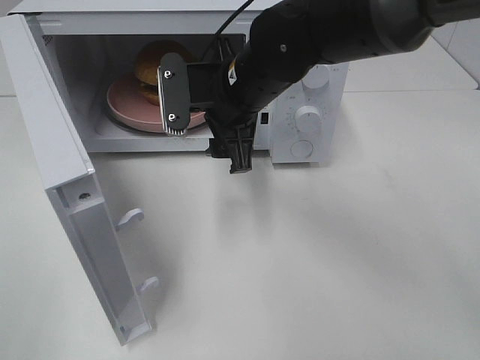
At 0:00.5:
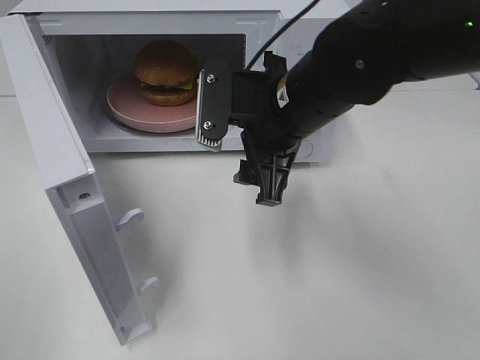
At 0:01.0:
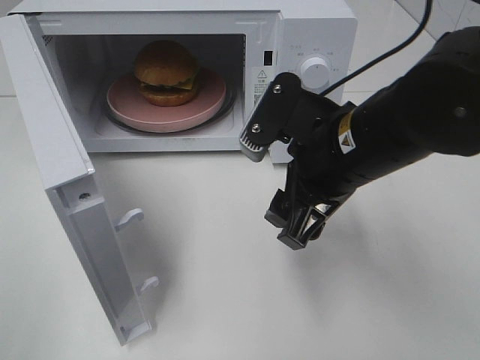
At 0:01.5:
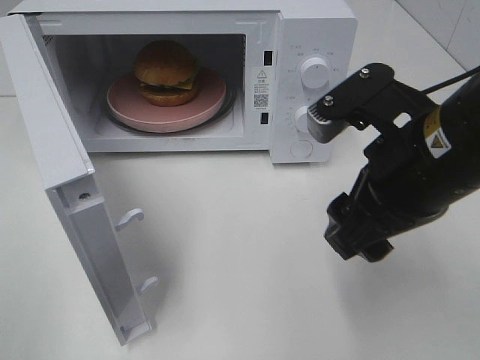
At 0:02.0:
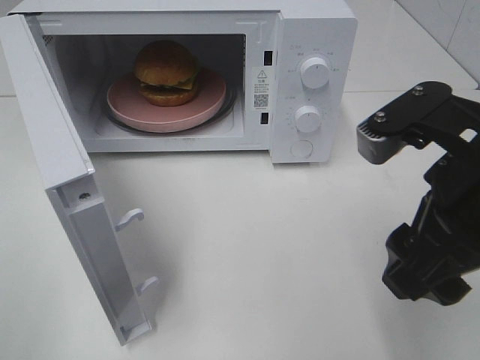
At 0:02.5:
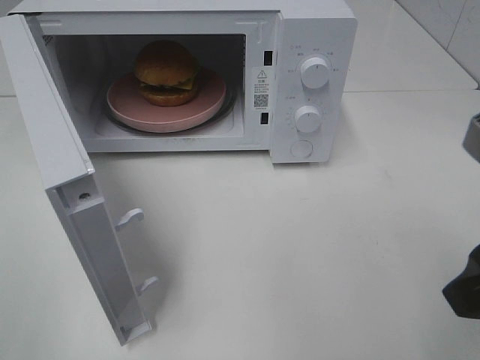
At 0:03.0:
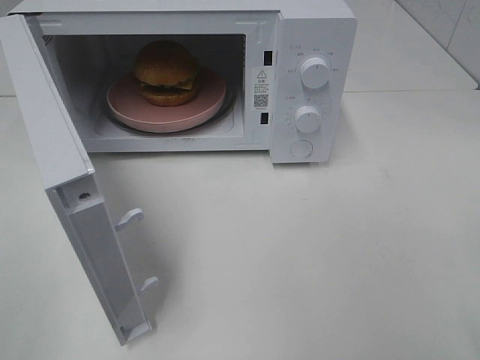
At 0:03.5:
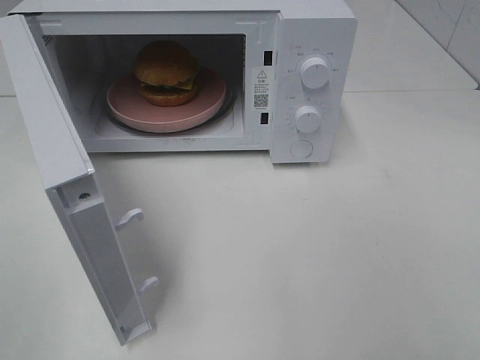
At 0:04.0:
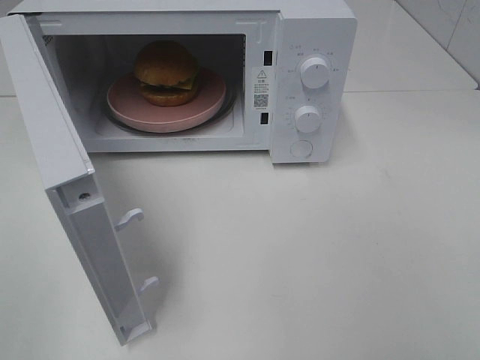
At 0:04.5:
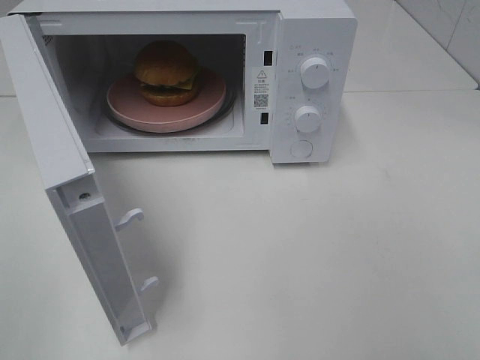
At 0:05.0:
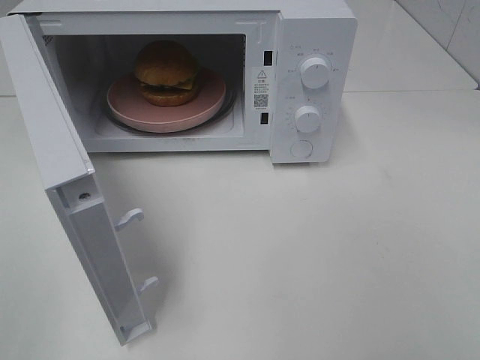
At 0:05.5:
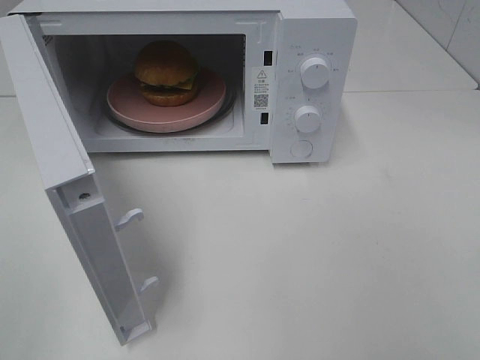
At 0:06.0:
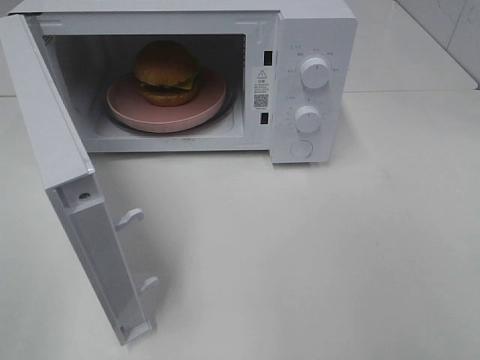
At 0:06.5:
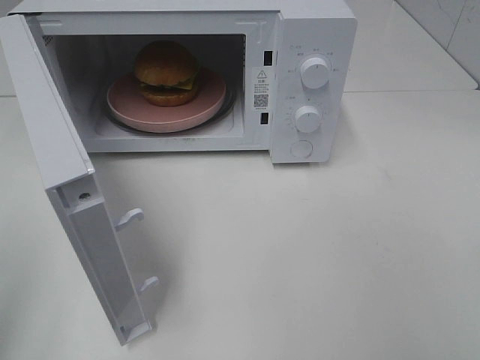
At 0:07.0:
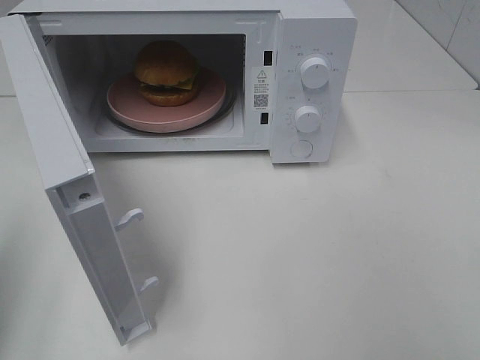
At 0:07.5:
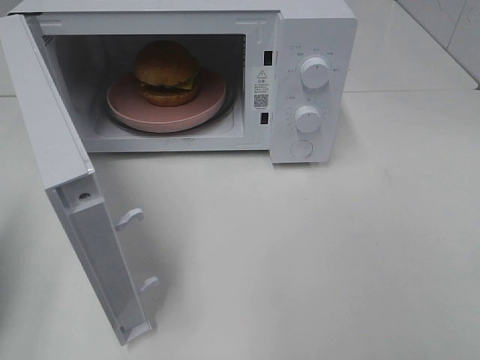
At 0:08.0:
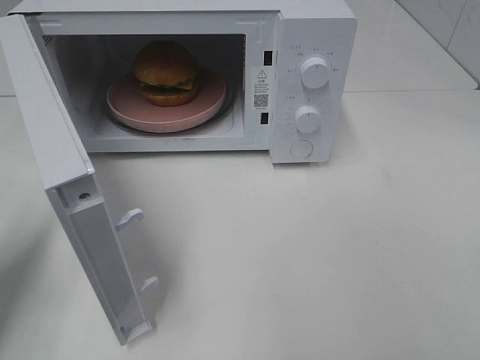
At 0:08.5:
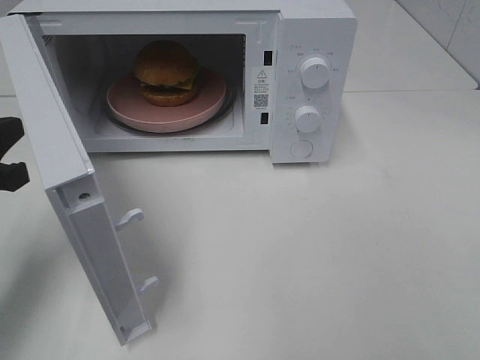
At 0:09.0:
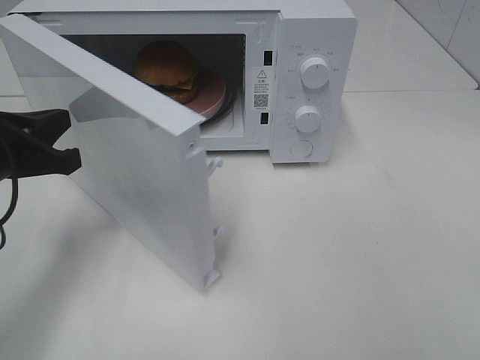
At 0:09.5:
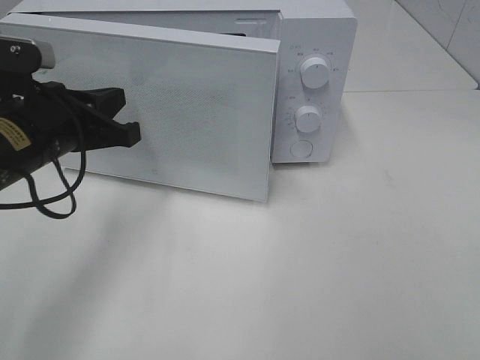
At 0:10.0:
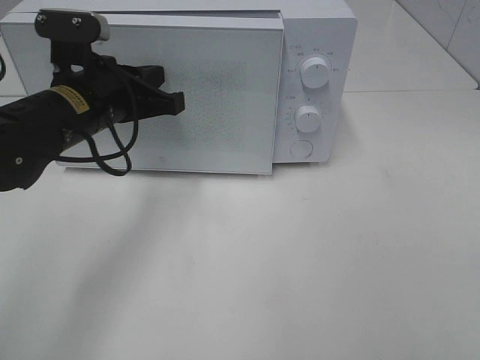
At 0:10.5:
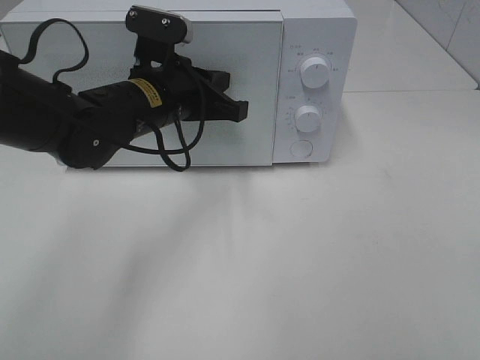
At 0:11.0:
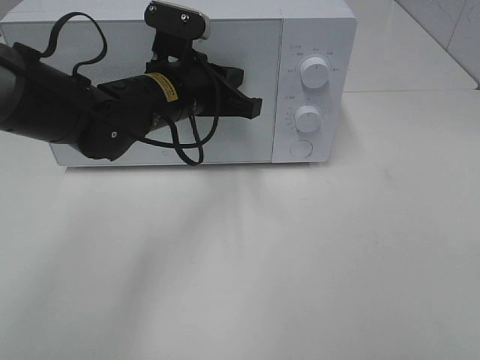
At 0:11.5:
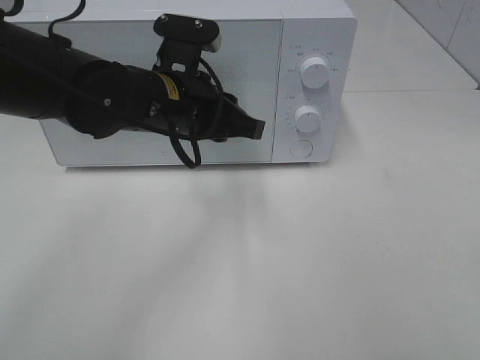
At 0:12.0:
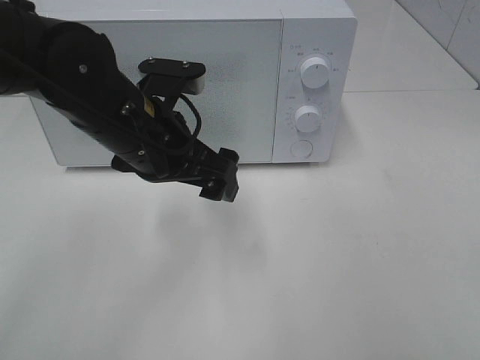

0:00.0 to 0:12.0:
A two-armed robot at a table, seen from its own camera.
Task of the whole recording: Heat the burger.
Step, 0:00.0 to 0:11.0: Left hand: close the microwave door.
0:00.0 to 0:02.0: The right gripper shifts approximately 25 cm backward and to the right.
0:02.0 to 0:04.0: The right gripper moves backward and to the right, roughly 20 cm.
0:06.0 to 0:08.0: The left gripper heads forward and downward, covering roughly 20 cm, and closes up.
0:08.0 to 0:10.0: The left gripper shifts about 20 cm to the right and forward.
0:10.0 to 0:12.0: The left gripper heads to the right, covering some 5 cm, and opens.

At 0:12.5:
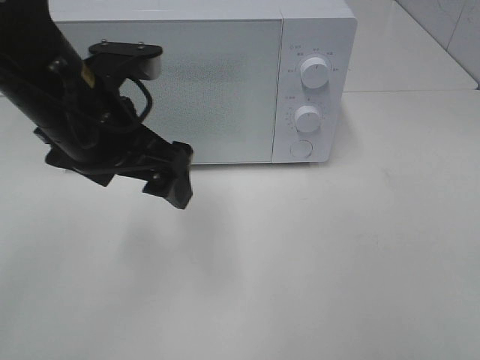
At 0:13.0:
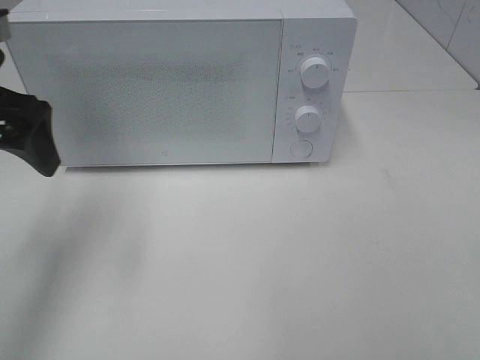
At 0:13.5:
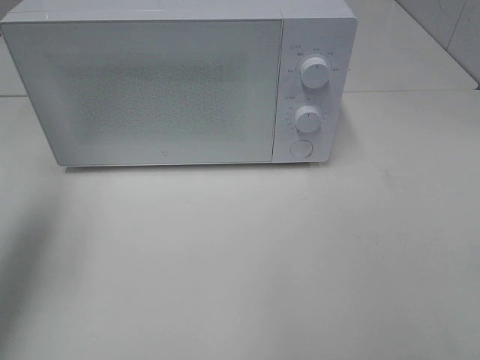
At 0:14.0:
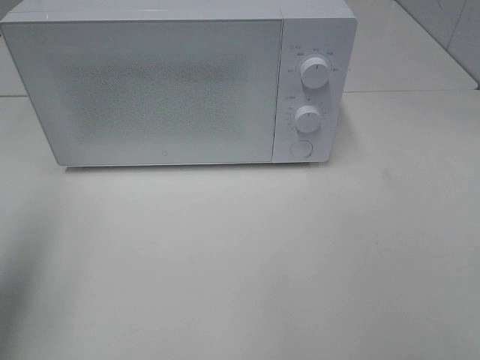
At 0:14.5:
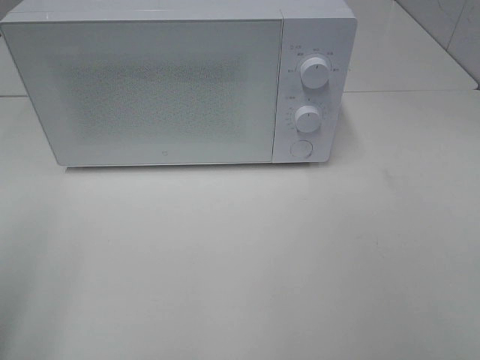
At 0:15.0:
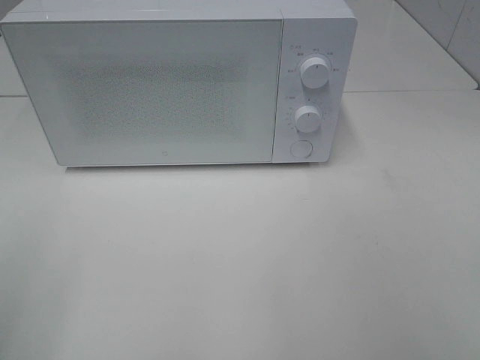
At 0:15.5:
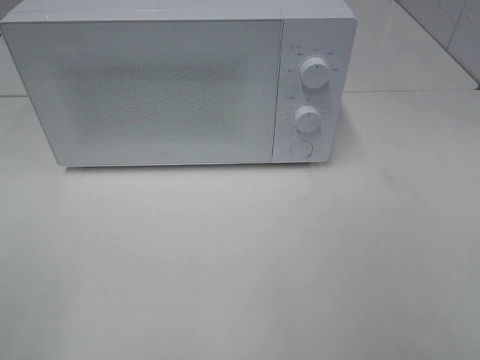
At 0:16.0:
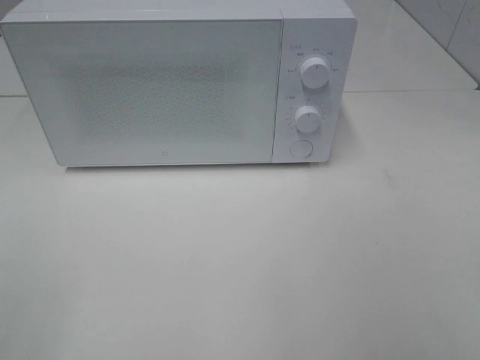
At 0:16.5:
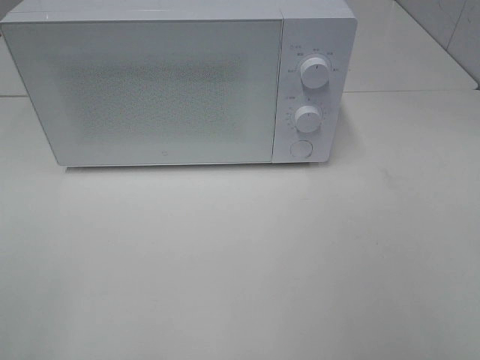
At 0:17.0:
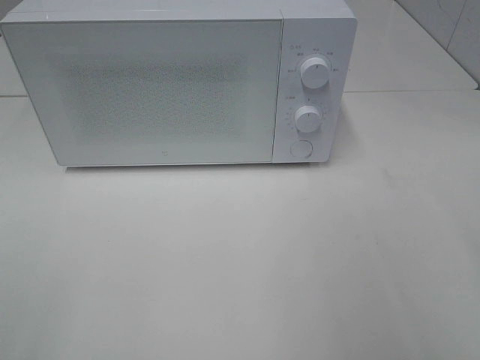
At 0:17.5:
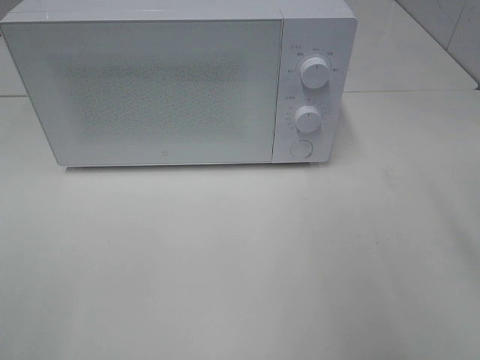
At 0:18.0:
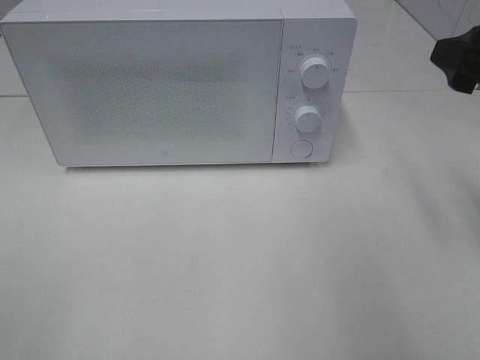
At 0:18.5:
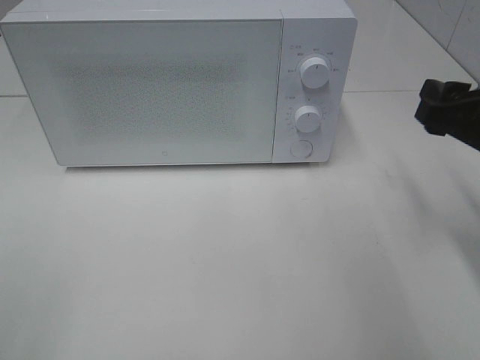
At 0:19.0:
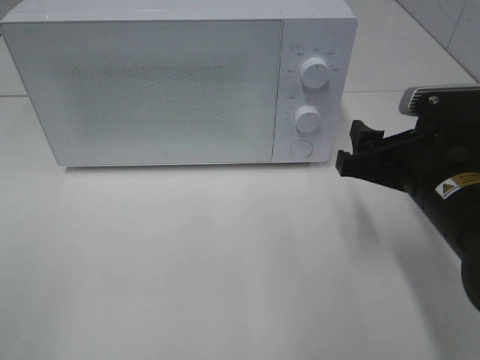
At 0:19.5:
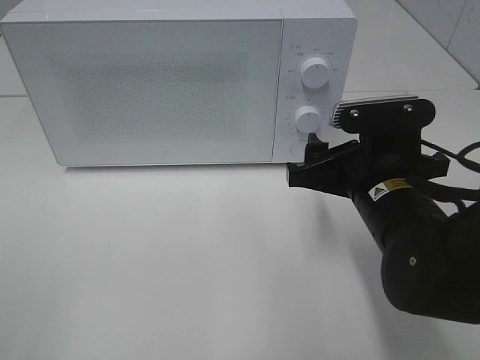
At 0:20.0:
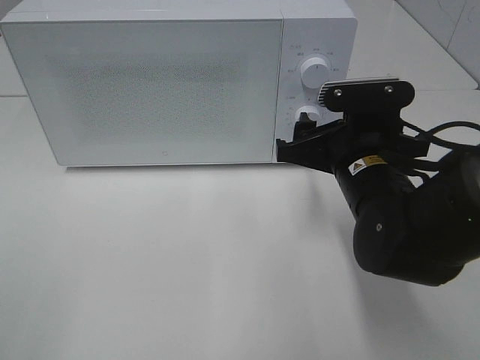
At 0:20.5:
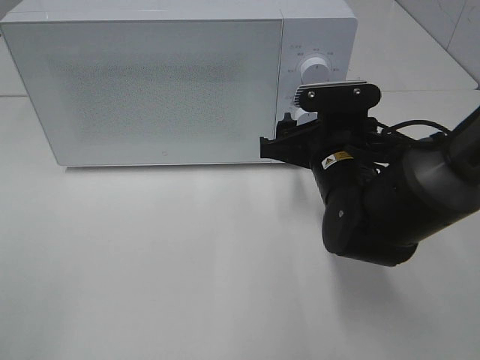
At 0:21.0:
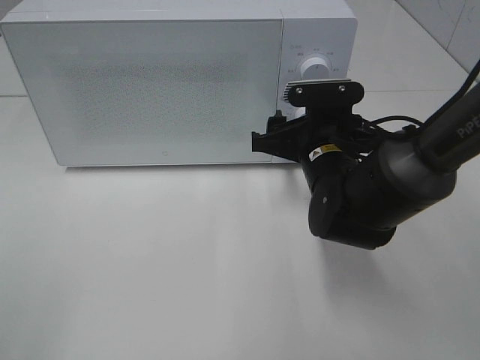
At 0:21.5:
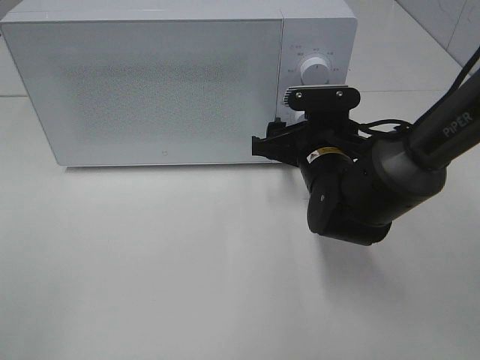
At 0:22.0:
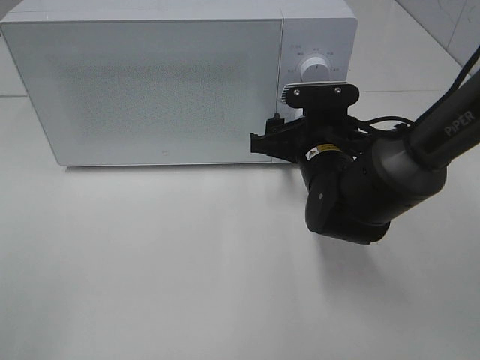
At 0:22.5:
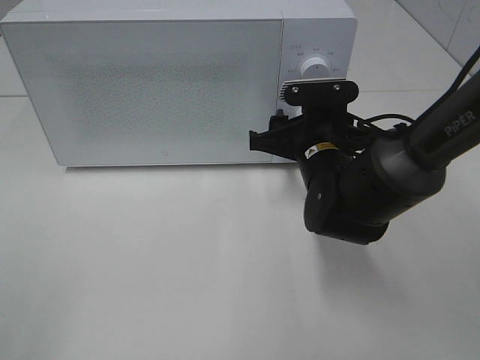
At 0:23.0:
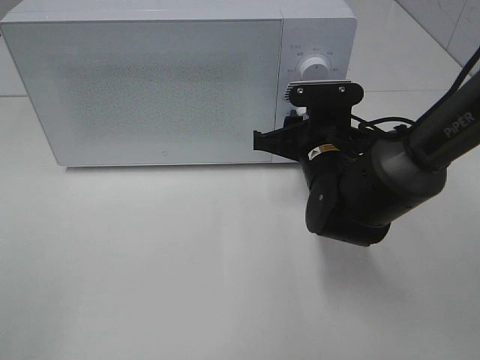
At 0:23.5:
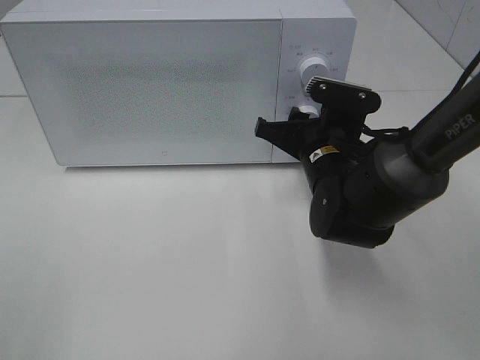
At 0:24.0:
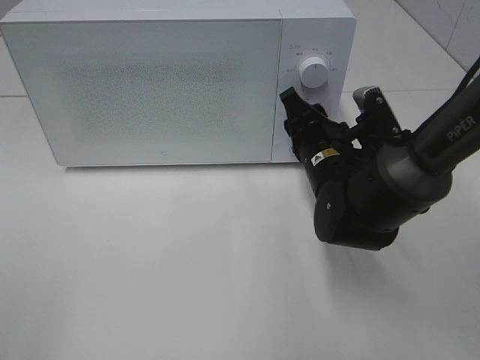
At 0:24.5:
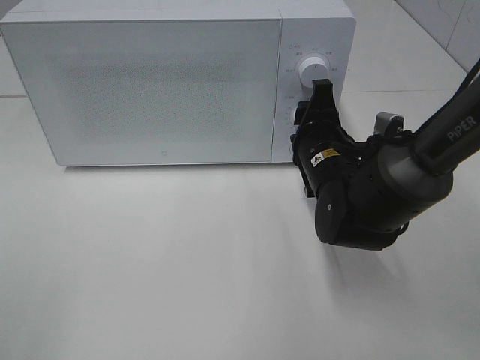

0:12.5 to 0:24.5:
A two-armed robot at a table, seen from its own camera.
Task of the whole recording: Heat the burger.
0:12.5 to 0:14.5: The left gripper shifts approximately 25 cm to the left and backward.
0:16.5 to 0:18.5: The right gripper heads forward and downward, covering roughly 25 cm.
0:18.5 to 0:20.5: The right gripper heads to the left and downward, covering some 15 cm.
0:20.5 to 0:22.5: The grippers move only a little.

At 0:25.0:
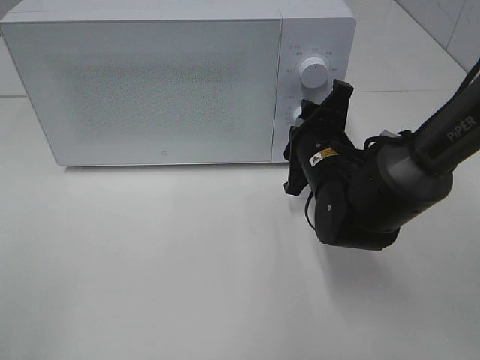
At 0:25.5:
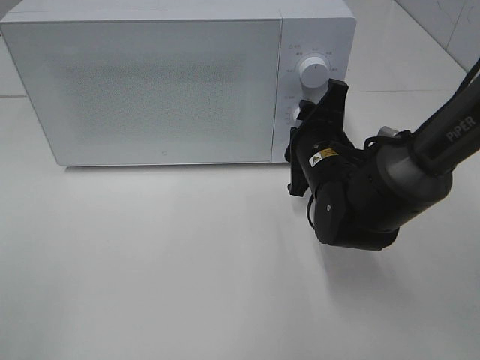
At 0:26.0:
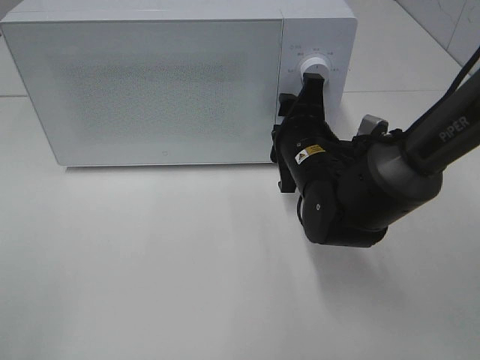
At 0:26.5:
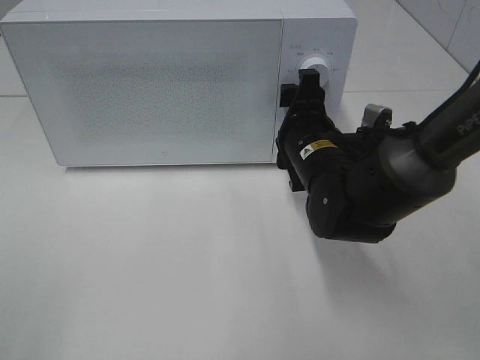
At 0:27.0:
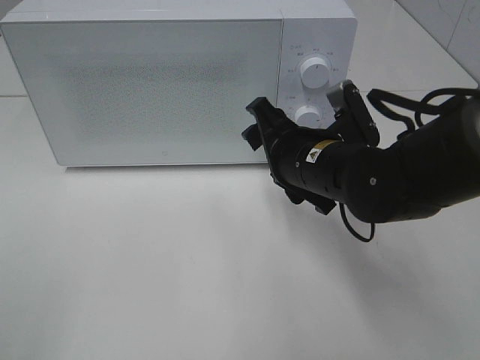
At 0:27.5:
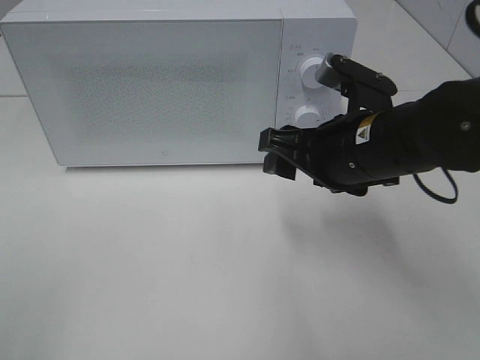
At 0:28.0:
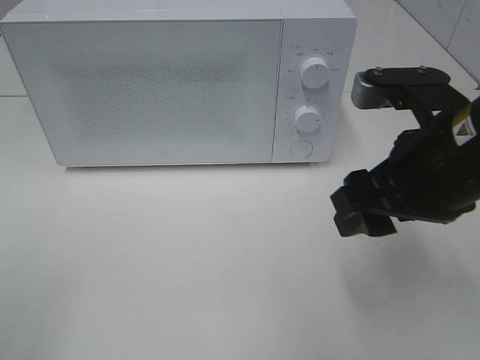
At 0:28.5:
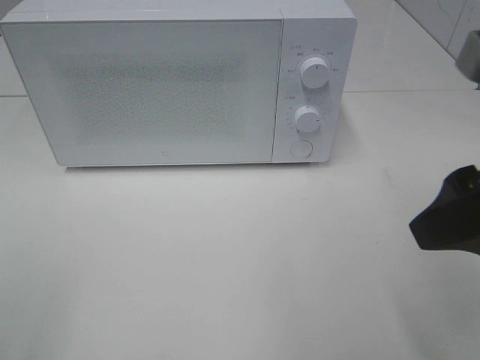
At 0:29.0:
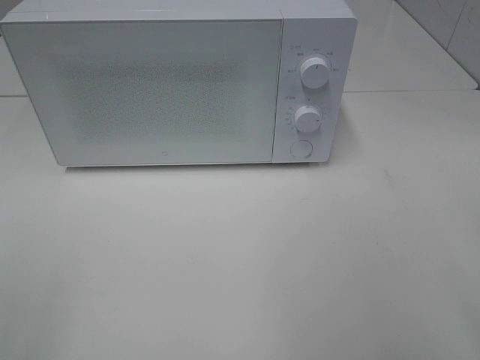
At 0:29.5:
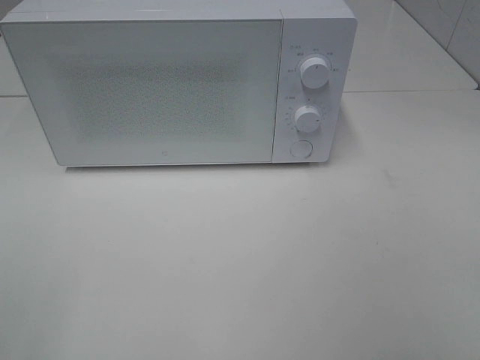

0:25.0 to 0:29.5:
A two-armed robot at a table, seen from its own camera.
Task of the whole recording: Heat the burger.
0:25.0 to 0:27.0: The right gripper ends up approximately 5 cm from where it was.
0:27.0 to 0:29.5: The right gripper heads backward, to the right and upward, covering roughly 35 cm.
